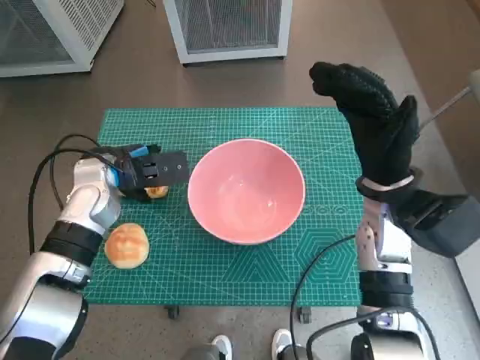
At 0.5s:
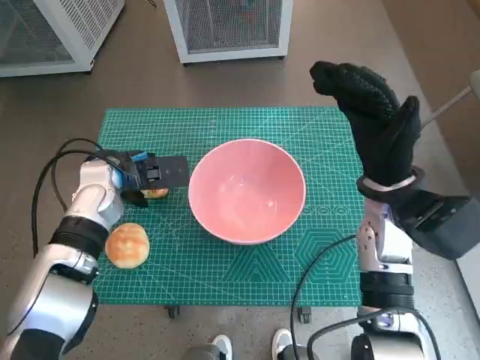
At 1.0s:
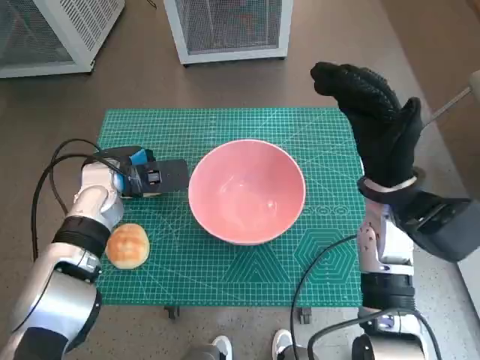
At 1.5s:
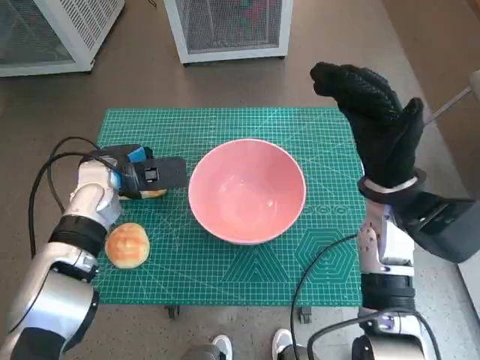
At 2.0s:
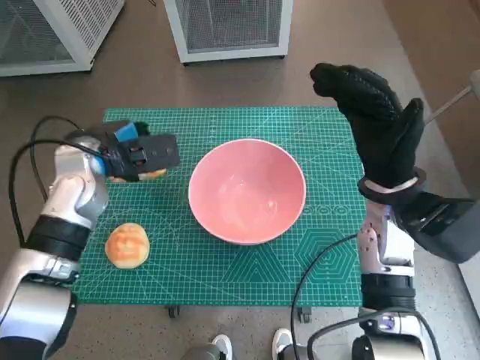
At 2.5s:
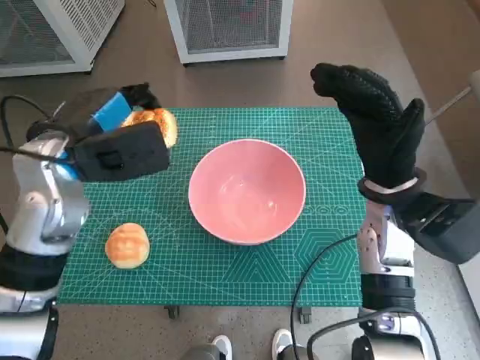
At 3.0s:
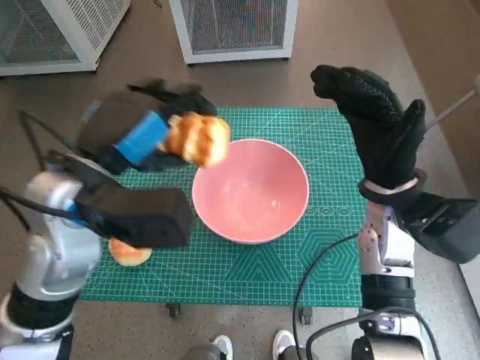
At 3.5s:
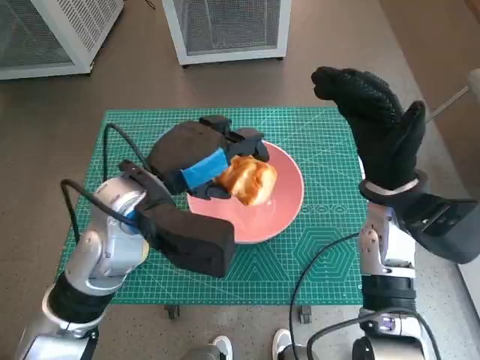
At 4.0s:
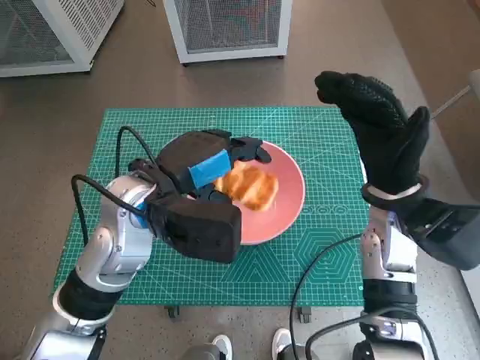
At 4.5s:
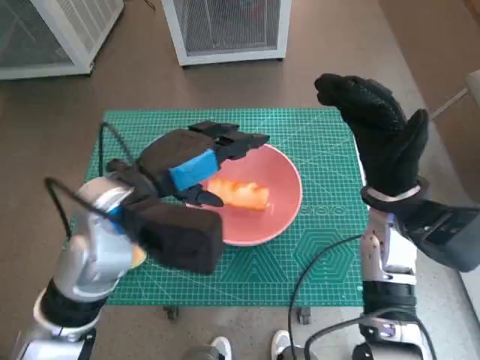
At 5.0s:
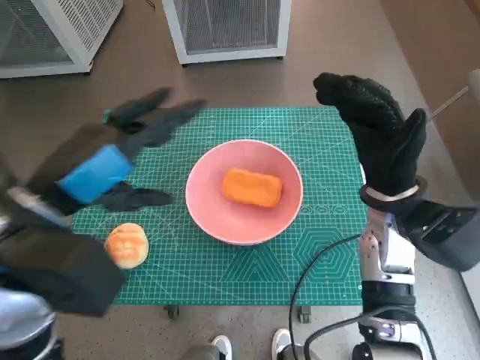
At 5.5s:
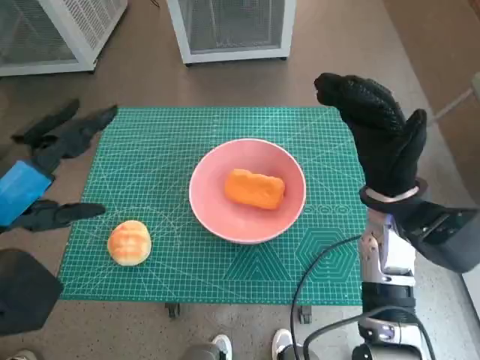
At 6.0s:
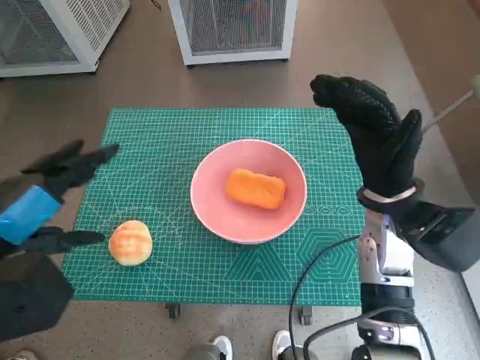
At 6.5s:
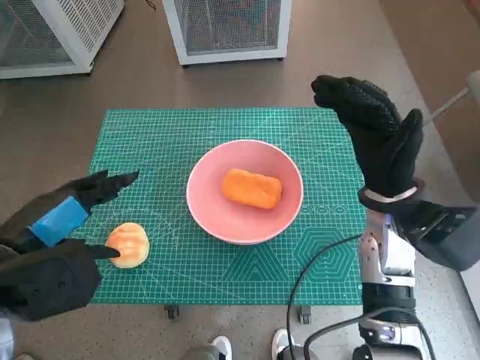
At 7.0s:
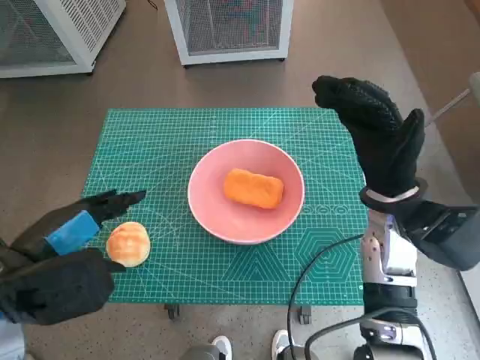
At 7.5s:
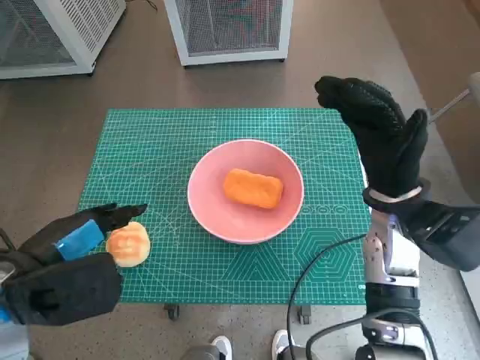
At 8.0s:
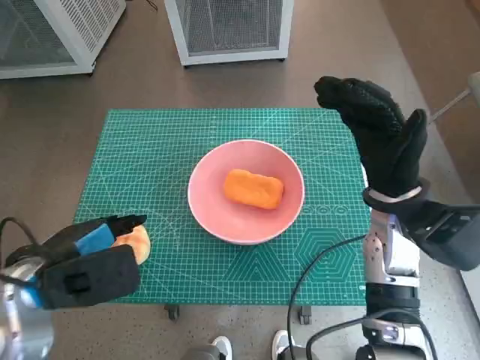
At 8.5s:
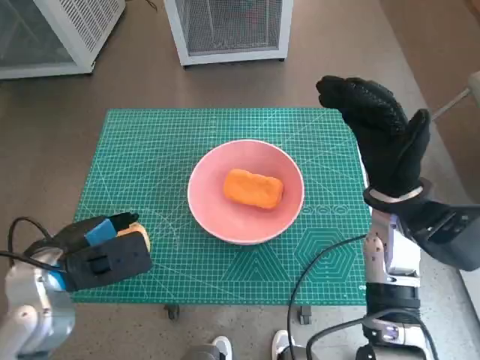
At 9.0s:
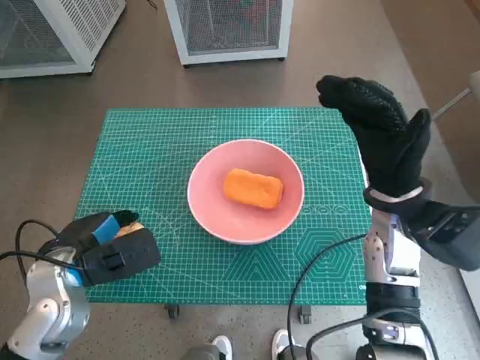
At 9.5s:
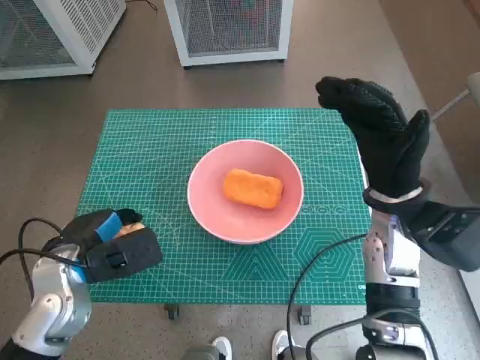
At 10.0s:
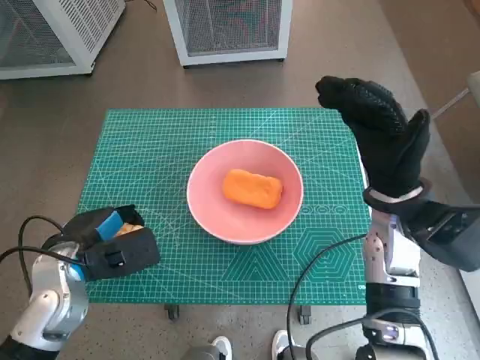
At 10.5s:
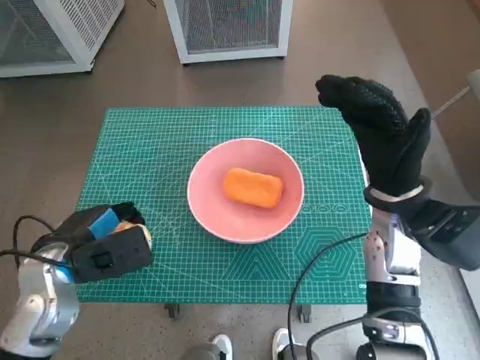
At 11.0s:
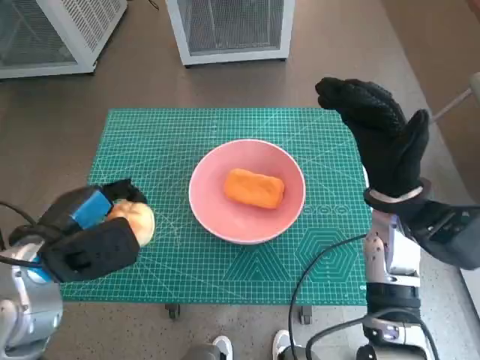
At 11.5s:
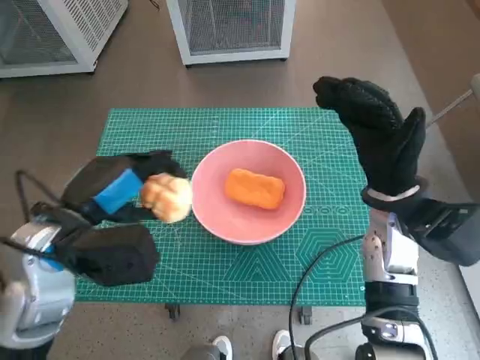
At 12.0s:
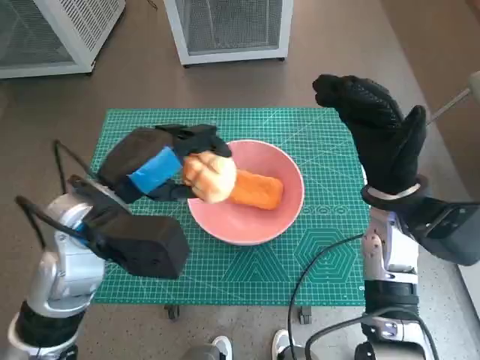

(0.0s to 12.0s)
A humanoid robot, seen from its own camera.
Task of the whole recording: Push the bowl into the center of the table and put the bread into the bowl.
Step, 1.0s - 4.0s: Place the long bread in pink bowl with left hand.
Step, 4.5s - 9.0s: Grasp the round bread with left hand.
0.0s - 2.0s: There are only small adjustments of the hands.
2.0s - 4.0s: The left hand goes roughly 10 cm to the right and backward.
4.0s - 6.0s: The left hand moves to the left and backward, approximately 15 cm.
6.0s - 8.0s: The left hand heads downward, covering roughly 5 cm.
8.0s - 10.0s: The left hand goes approximately 5 cm downward.
10.0s - 12.0s: The left hand moves upward and to the right, some 15 cm.

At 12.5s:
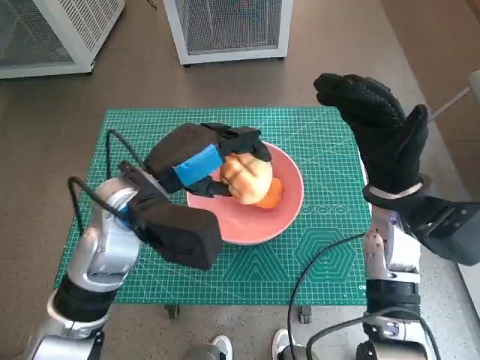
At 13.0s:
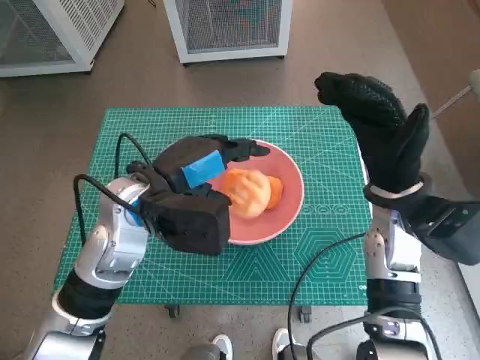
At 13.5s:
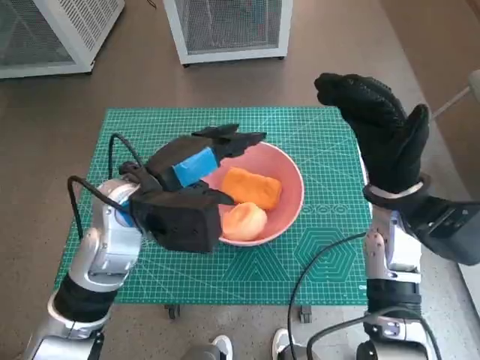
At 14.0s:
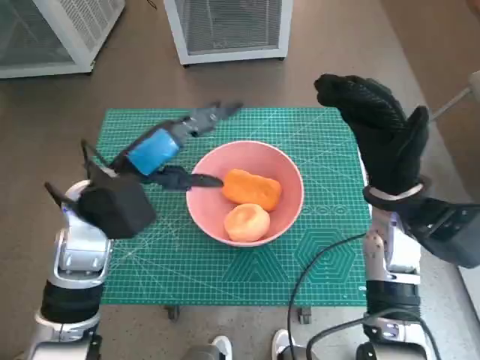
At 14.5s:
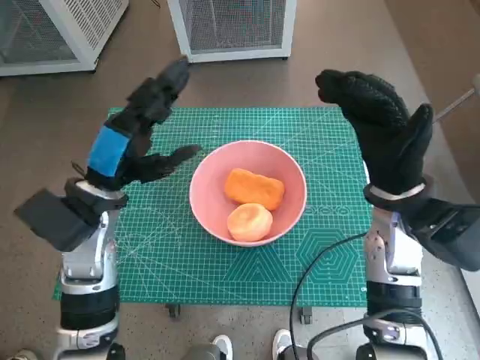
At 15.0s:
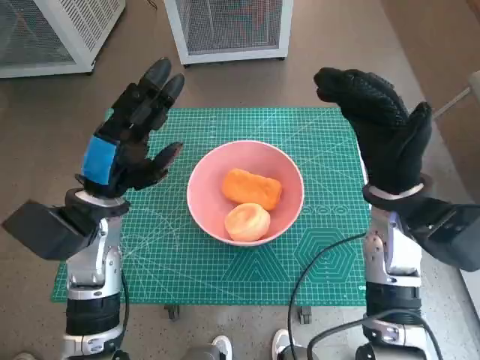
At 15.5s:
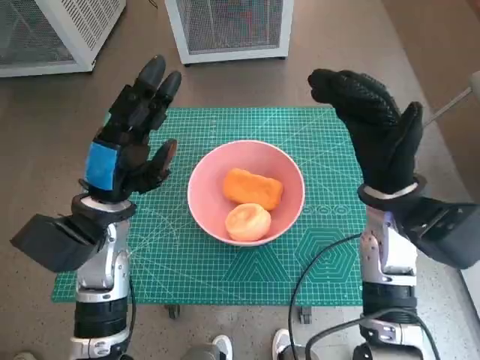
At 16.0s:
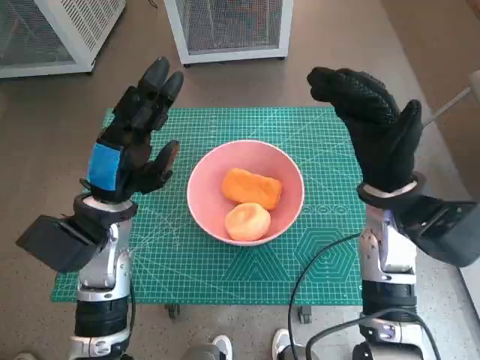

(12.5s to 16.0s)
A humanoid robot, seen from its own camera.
Task of the whole recording: Push the bowl into the center of the table and put the bread into the bowl.
12.5s - 14.5s: The left hand travels to the left by about 5 cm.
14.5s - 16.0s: The hands move only a little.

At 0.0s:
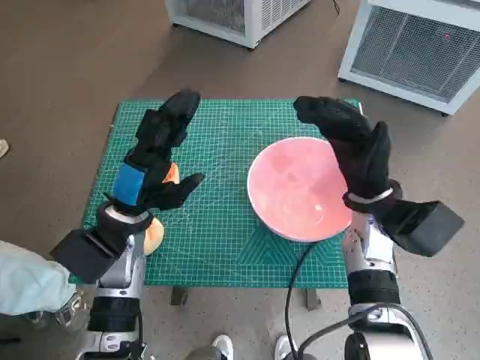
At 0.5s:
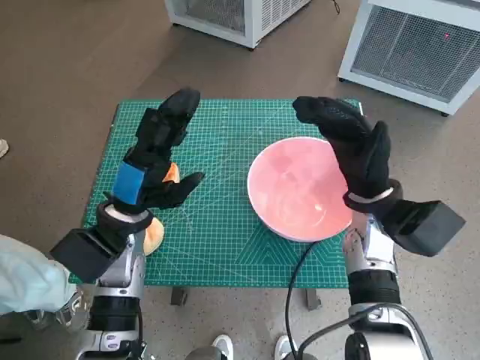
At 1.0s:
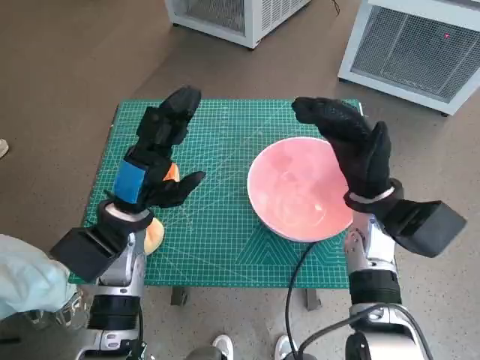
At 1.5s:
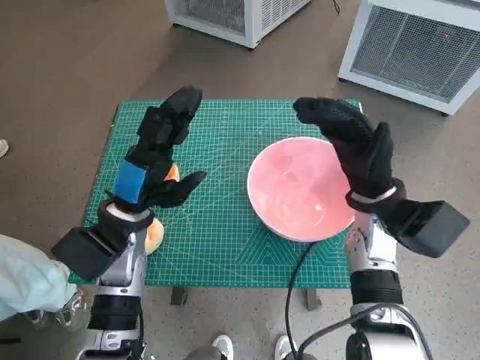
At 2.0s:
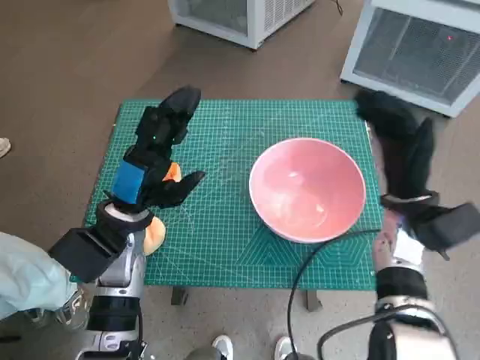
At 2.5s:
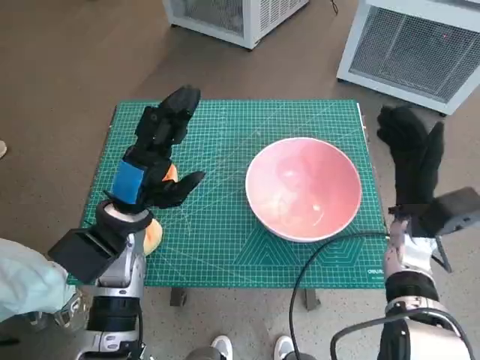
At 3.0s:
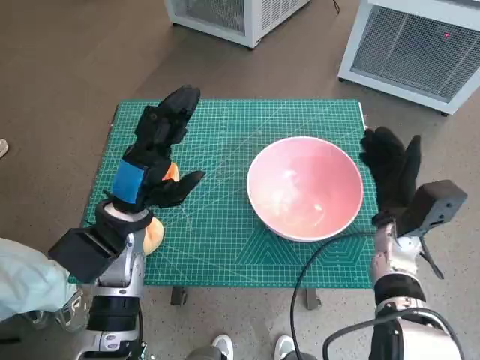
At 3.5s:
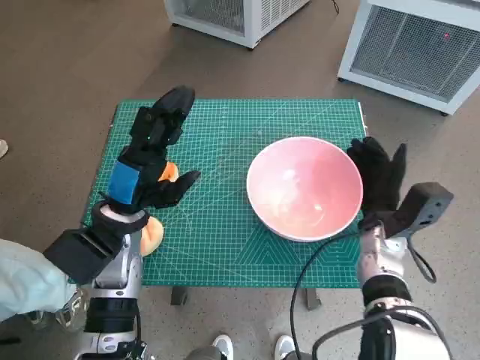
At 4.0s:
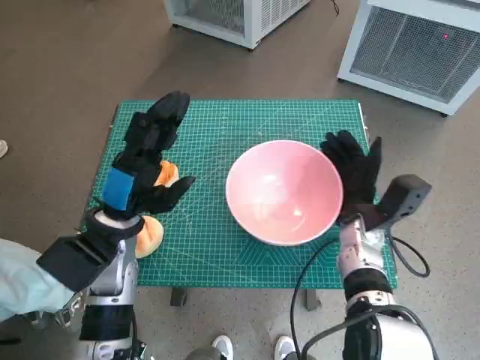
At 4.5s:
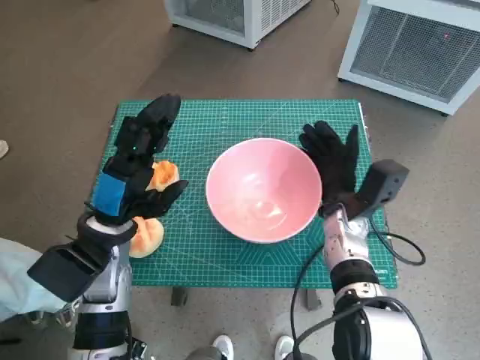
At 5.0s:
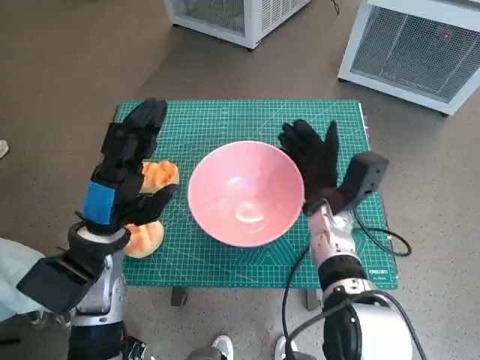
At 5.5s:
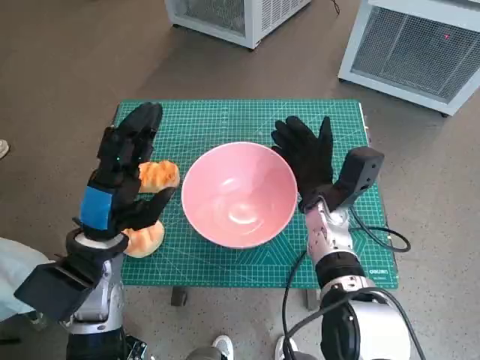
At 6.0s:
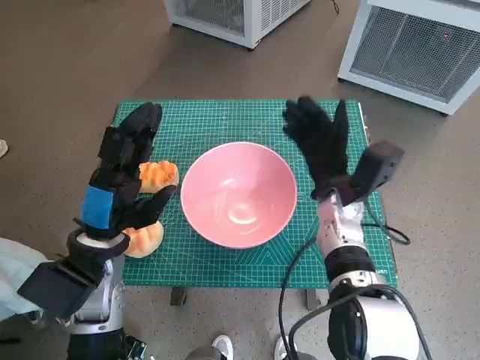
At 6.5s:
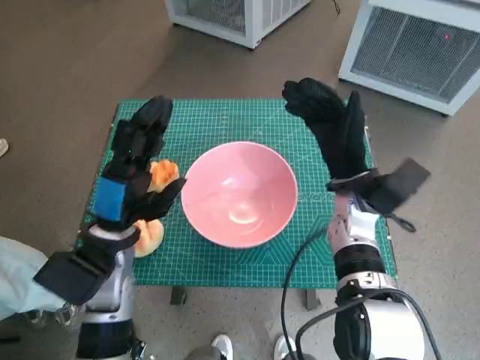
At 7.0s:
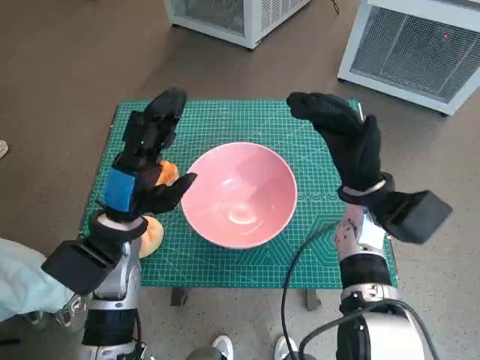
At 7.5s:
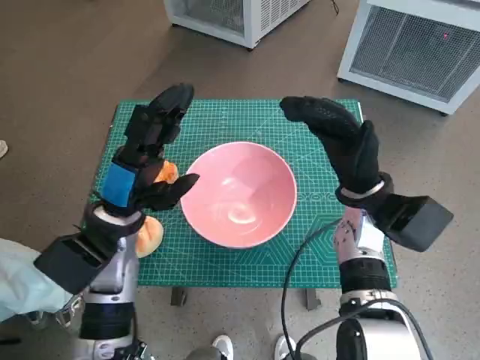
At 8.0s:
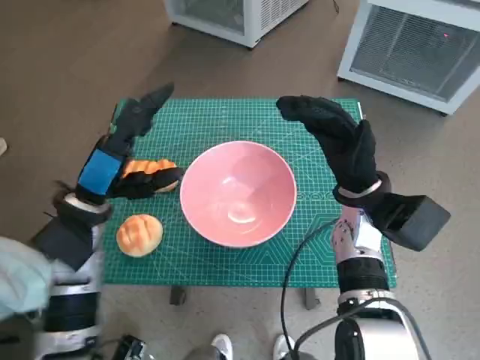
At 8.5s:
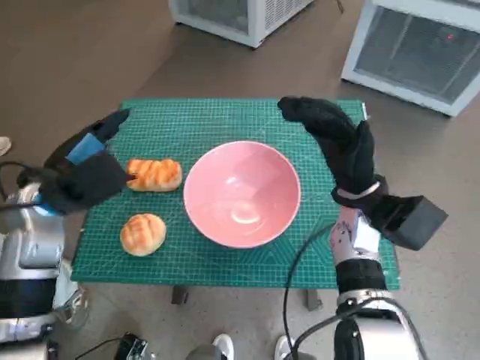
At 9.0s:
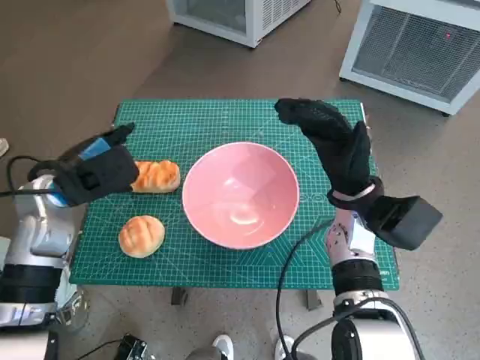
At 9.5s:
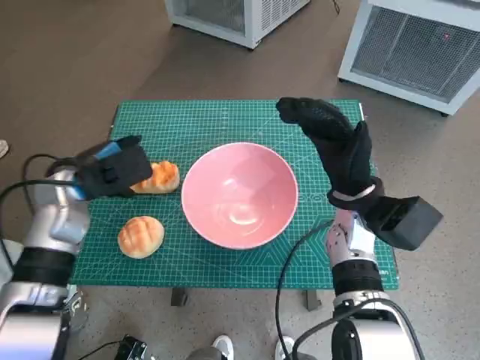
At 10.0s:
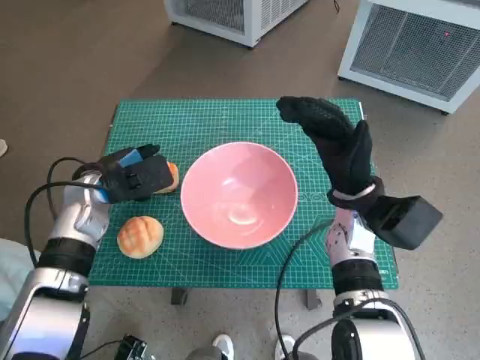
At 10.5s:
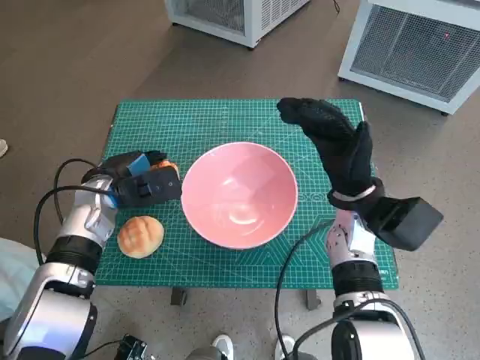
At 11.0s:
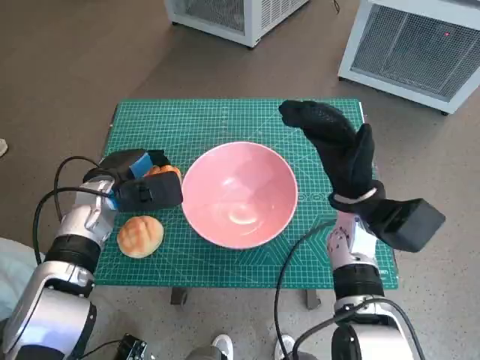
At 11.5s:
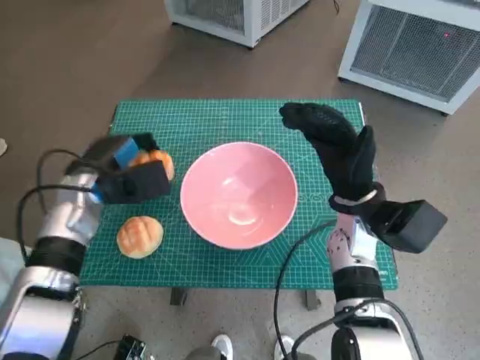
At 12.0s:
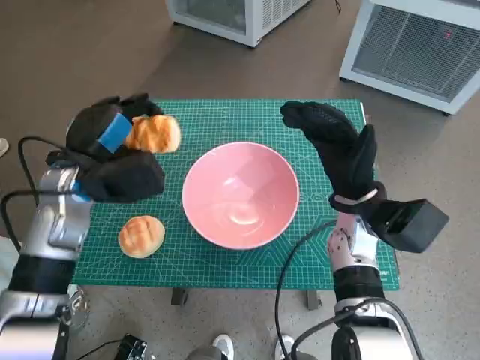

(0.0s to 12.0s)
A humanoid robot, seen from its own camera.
Task of the whole recording: Push the bowl into the center of the table and put the bread into the bowl.
Step, 0.0s - 5.5s: Move the pink bowl to the center of table with right hand.
Step, 6.0s - 10.5s: Grasp the long bread with left hand.
2.0s - 4.0s: The right hand travels downward by approximately 5 cm.
4.0s - 6.0s: The right hand moves roughly 5 cm.
8.0s - 10.0s: The left hand moves forward, some 5 cm.
10.0s - 12.0s: The left hand goes some 5 cm upward.
